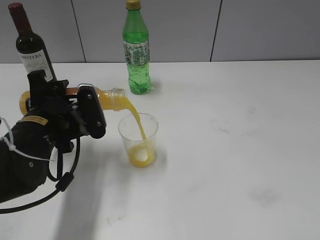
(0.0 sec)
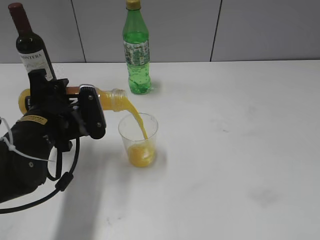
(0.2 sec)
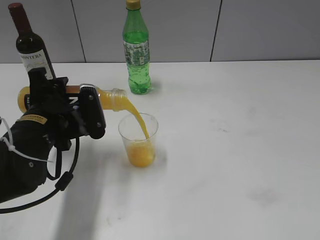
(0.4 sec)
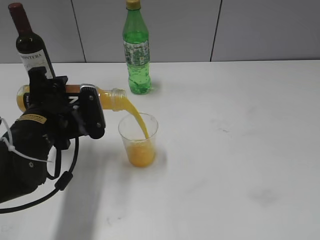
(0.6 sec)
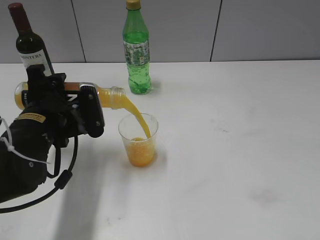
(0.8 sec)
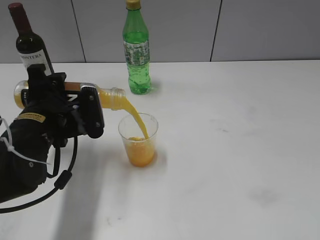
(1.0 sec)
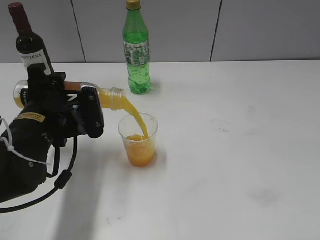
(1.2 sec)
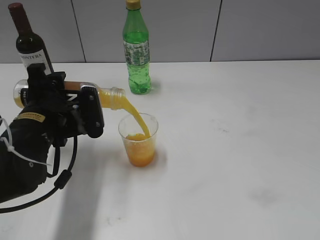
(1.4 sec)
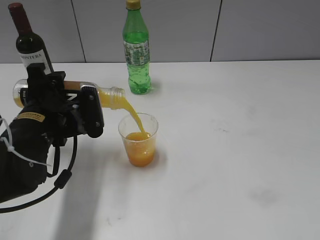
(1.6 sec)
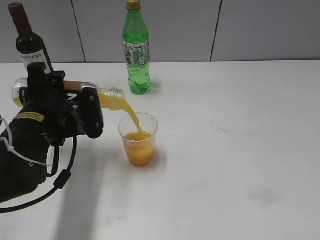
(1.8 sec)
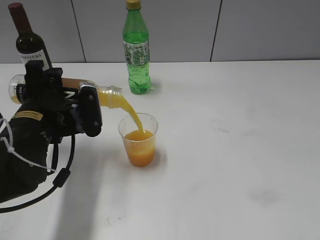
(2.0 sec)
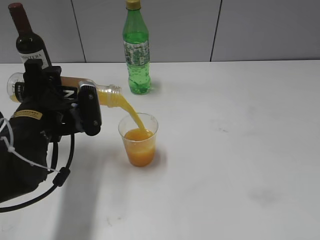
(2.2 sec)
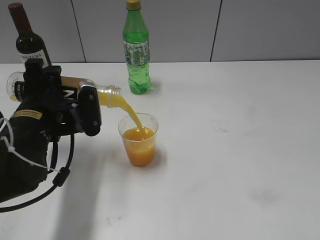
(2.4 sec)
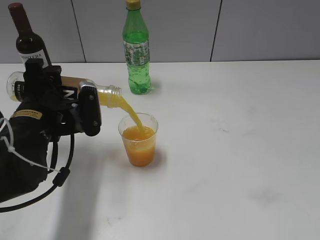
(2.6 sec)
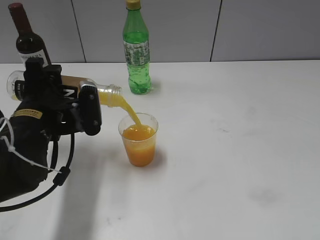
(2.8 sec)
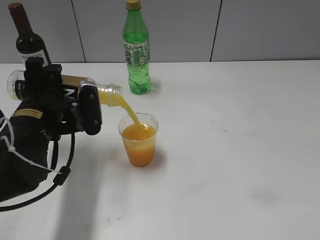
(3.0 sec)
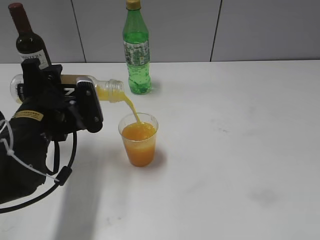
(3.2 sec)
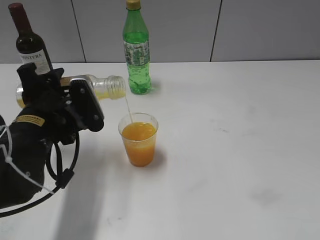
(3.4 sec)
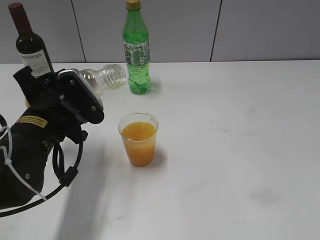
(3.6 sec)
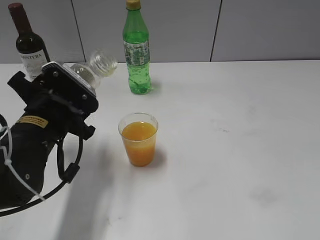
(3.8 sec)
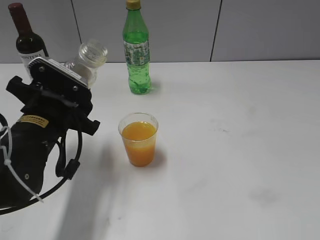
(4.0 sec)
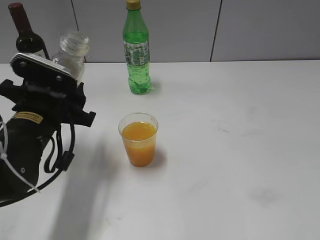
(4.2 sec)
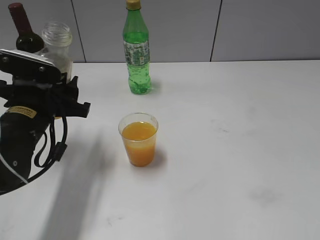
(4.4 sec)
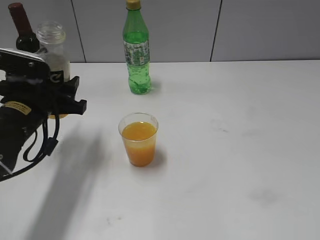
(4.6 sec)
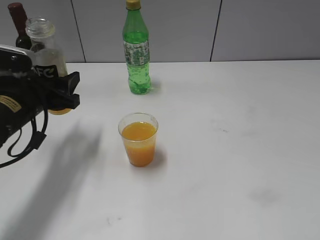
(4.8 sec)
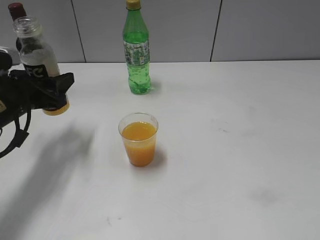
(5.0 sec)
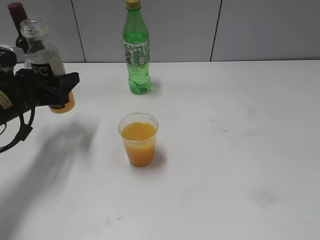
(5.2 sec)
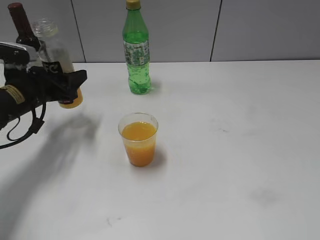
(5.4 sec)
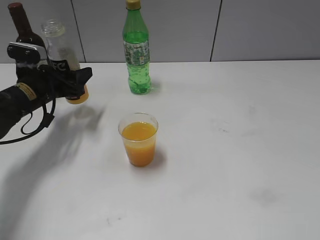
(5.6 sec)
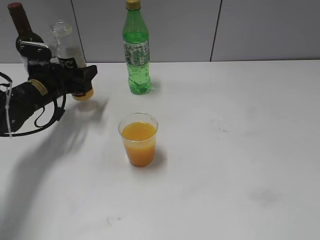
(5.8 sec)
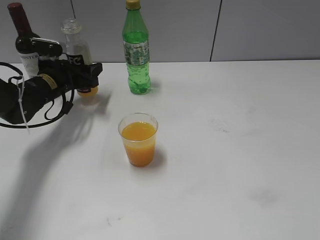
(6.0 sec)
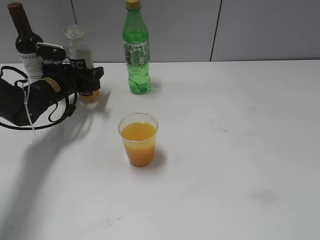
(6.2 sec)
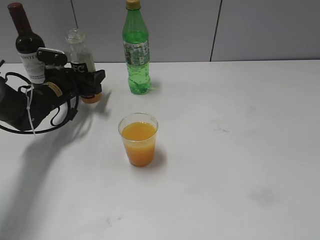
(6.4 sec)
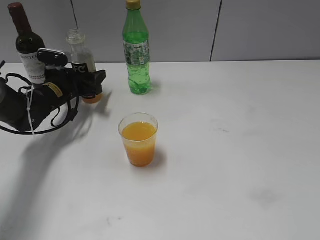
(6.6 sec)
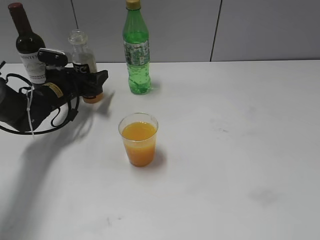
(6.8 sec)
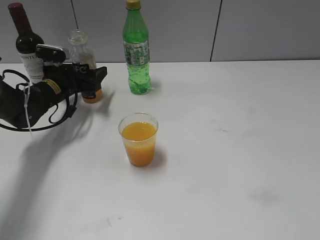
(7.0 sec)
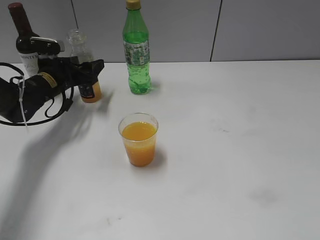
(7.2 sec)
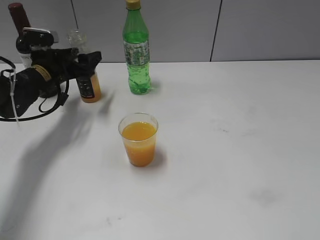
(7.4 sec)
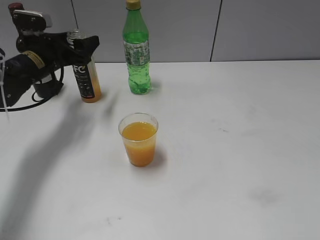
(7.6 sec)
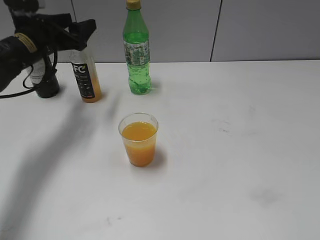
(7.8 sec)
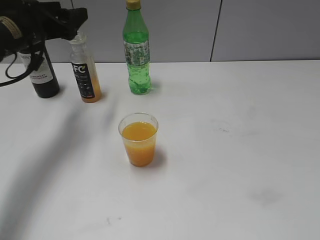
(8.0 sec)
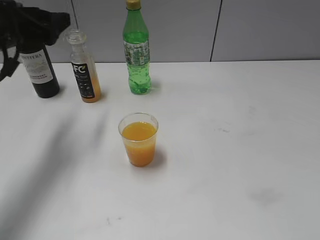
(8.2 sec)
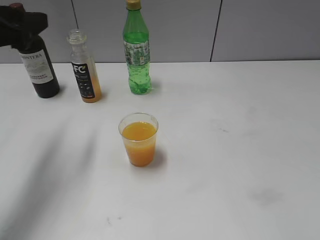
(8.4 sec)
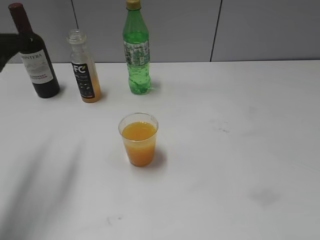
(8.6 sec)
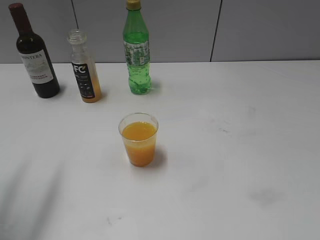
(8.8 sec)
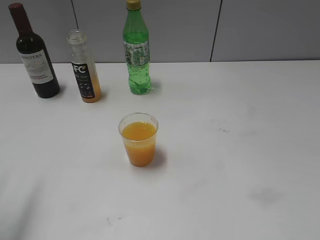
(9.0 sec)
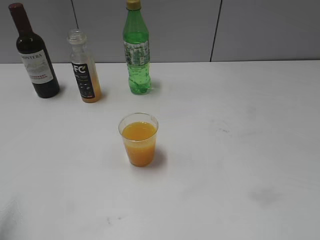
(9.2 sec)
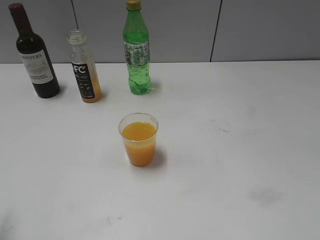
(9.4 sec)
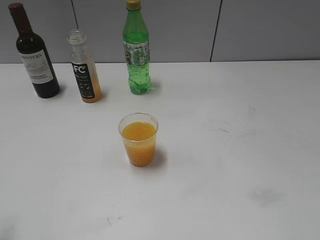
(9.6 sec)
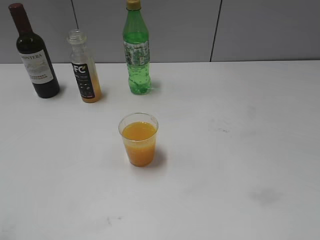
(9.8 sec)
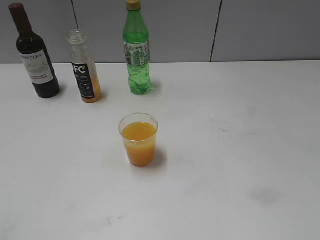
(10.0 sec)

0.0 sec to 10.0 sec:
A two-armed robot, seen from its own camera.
Step, 0.0 sec to 3.6 sec: Pour the orange juice from bottle to cup with left gripper.
Step, 3.8 sec to 7.4 sec: Place the orange juice bottle on the table with left gripper.
0.0 sec to 2.8 sec: The grippers move only a little.
4.2 sec to 5.8 sec: The left gripper goes approximately 15 cm forward.
5.8 sec to 7.2 sec: There are only small adjustments of the grippers.
7.2 sec to 8.6 sec: The left gripper is displaced backward and upward by approximately 30 cm.
8.6 sec to 10.0 sec: The left gripper is displaced backward by approximately 20 cm.
